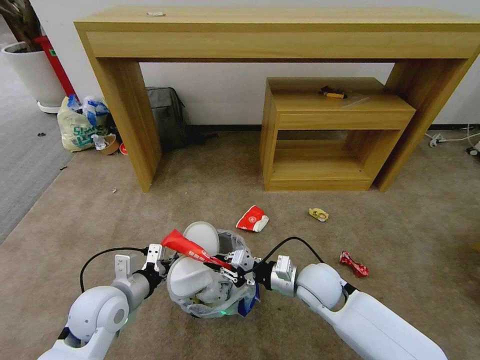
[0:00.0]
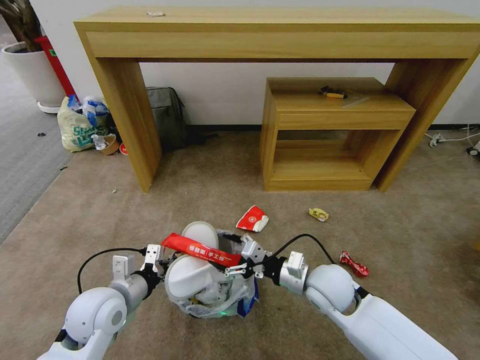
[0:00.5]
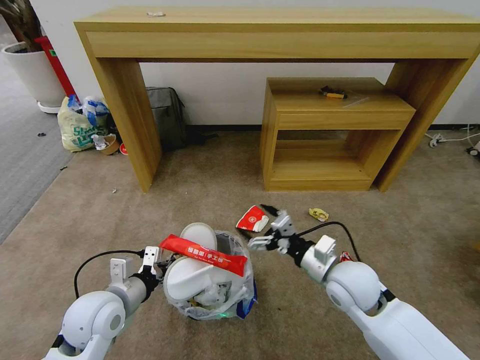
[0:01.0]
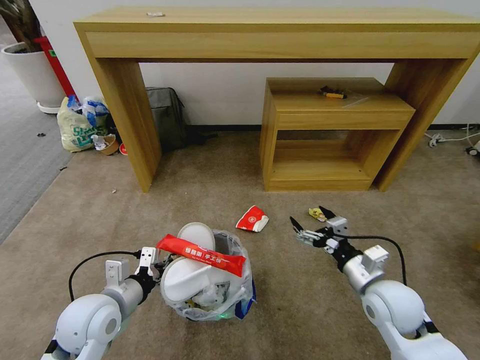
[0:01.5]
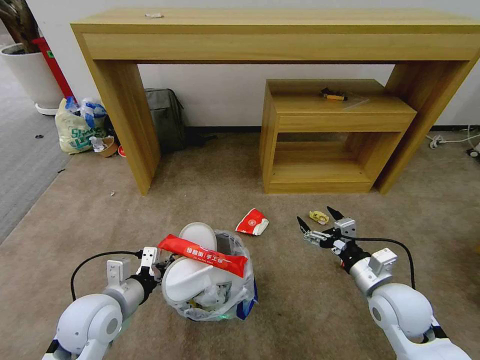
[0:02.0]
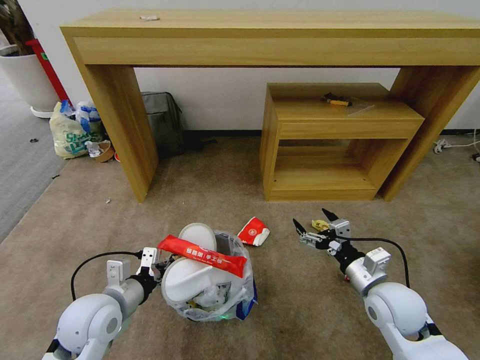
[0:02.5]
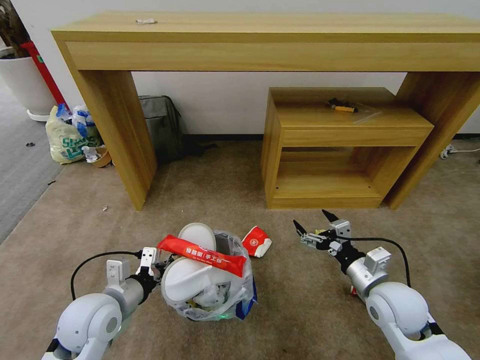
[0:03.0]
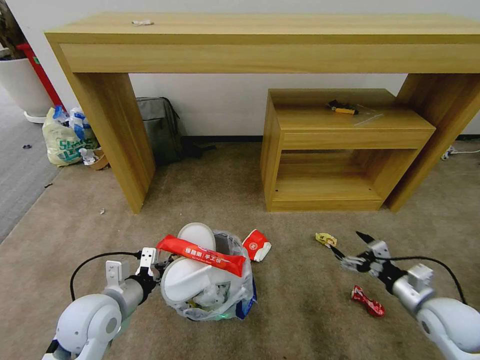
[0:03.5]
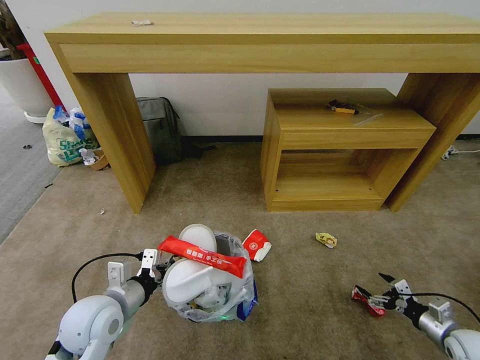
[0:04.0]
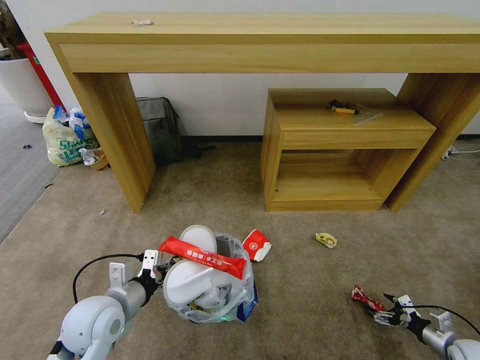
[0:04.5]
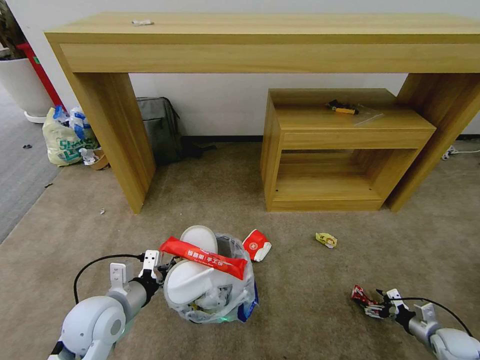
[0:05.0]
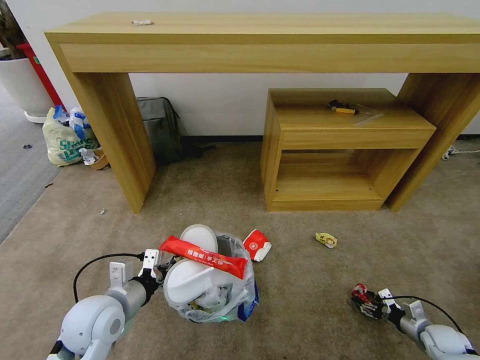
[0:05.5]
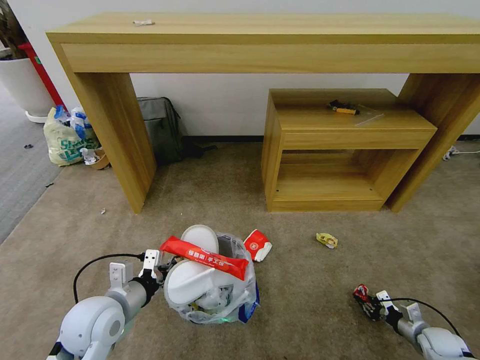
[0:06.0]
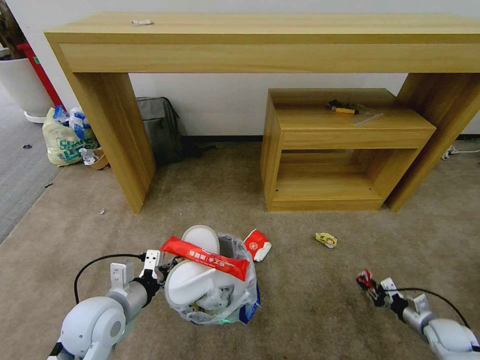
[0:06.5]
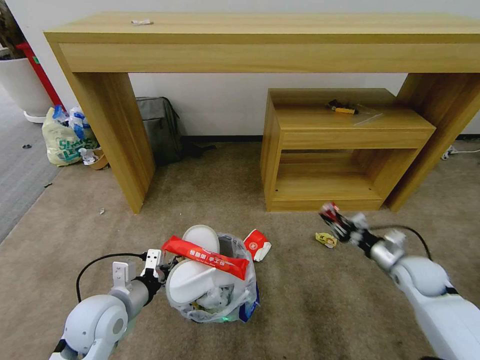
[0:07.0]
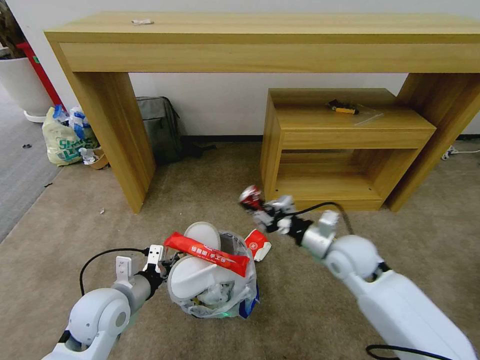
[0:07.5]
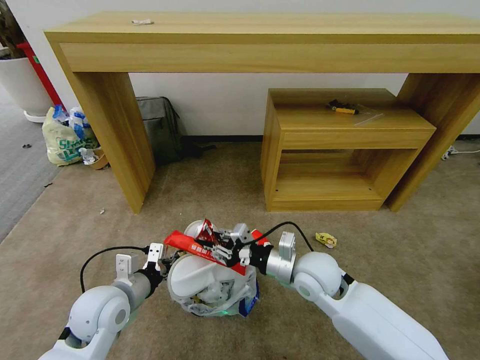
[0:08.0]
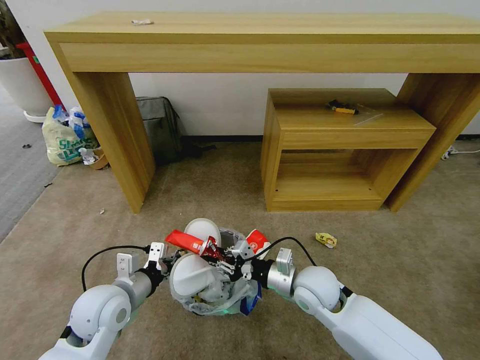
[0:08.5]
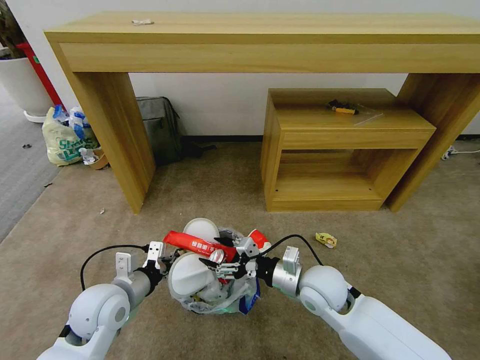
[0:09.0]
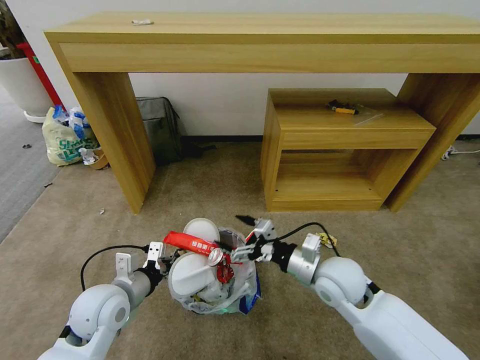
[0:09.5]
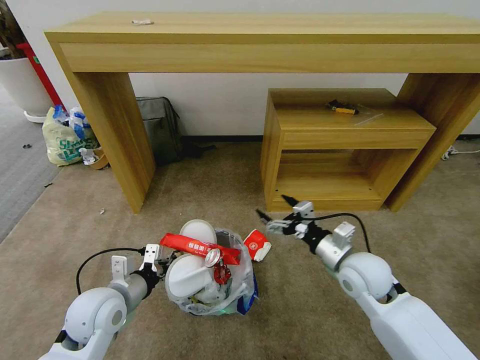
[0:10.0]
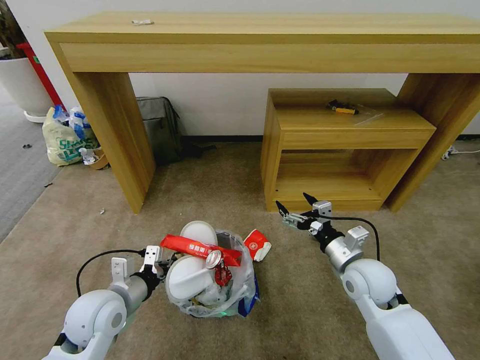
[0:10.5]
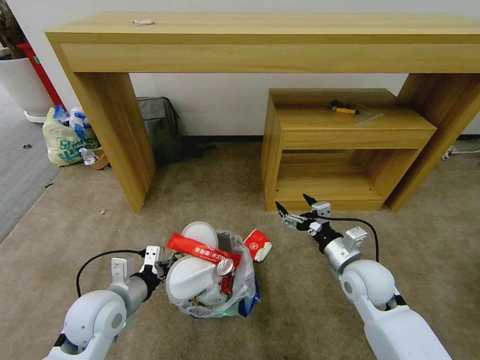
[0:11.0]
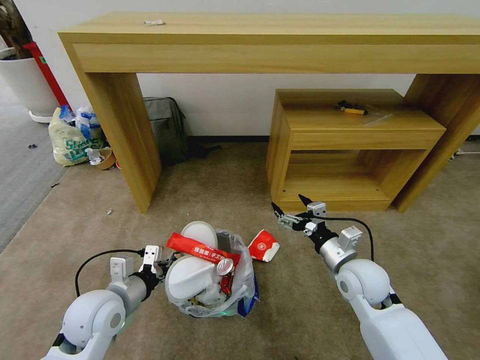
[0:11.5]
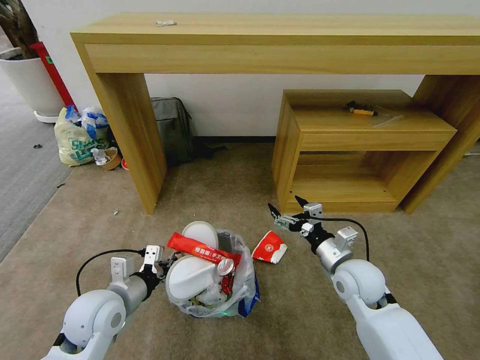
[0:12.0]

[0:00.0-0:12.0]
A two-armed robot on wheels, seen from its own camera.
Task of the whole recording: Pick up the trash bin and place the garbage on the floor into it.
0:00.0 to 0:02.0: The right gripper travels to the right and backward by roughly 15 cm, and opens its fingers.
0:02.0 to 0:04.0: The right gripper travels to the right and downward by roughly 30 cm.
0:04.0 to 0:06.0: The right gripper travels downward by some 10 cm, and closes its fingers.
0:06.0 to 0:08.0: The right gripper goes roughly 50 cm to the left and upward.
0:08.0 to 0:10.0: The right gripper travels to the right by approximately 10 cm, and opens its fingers.

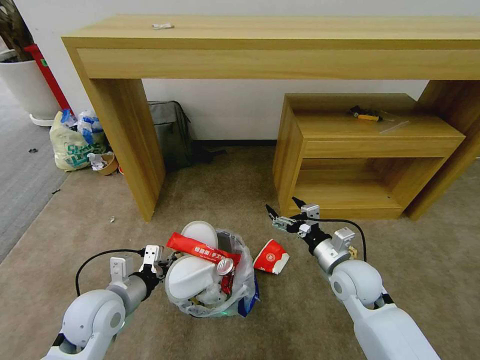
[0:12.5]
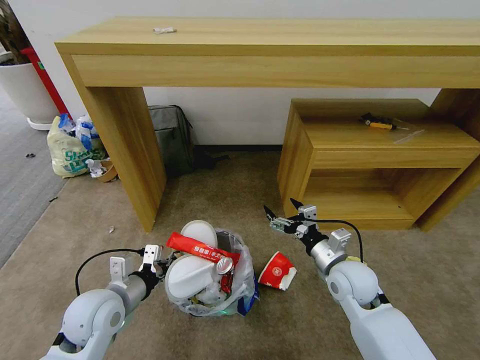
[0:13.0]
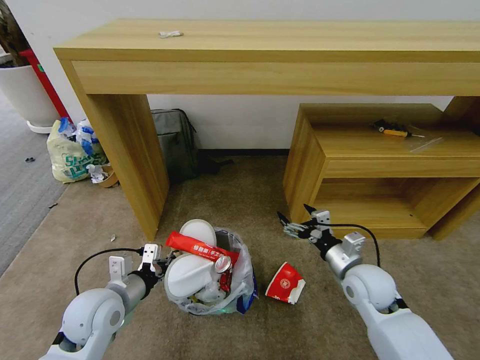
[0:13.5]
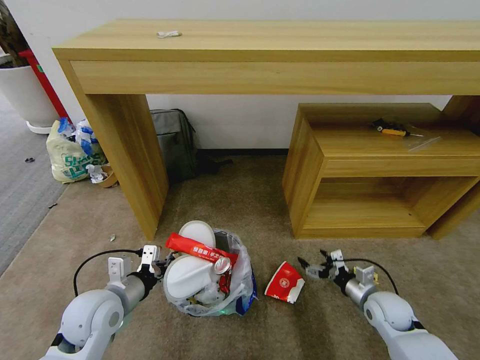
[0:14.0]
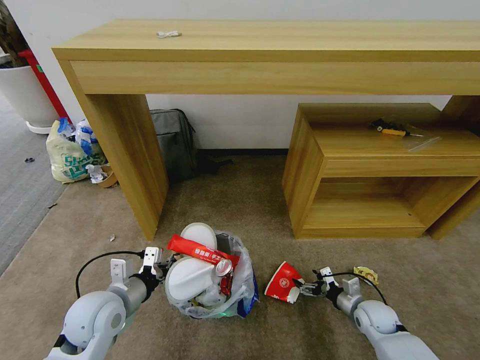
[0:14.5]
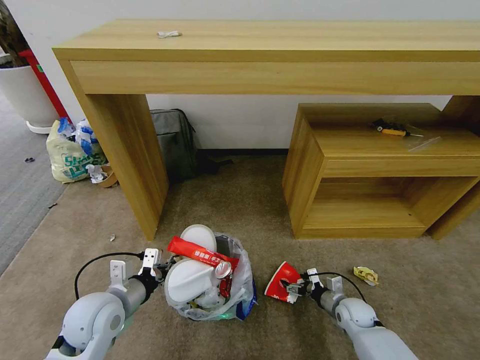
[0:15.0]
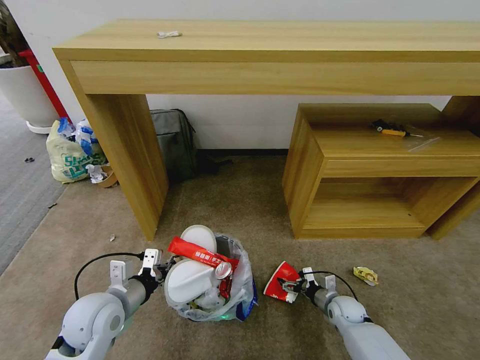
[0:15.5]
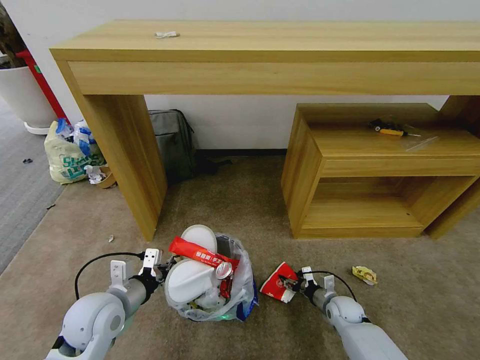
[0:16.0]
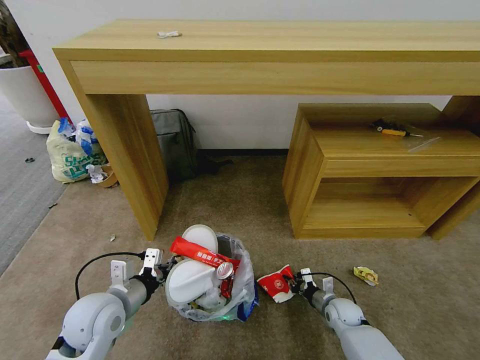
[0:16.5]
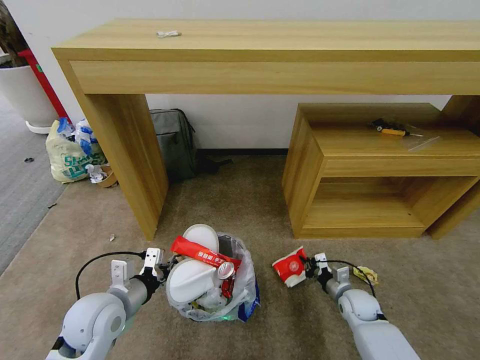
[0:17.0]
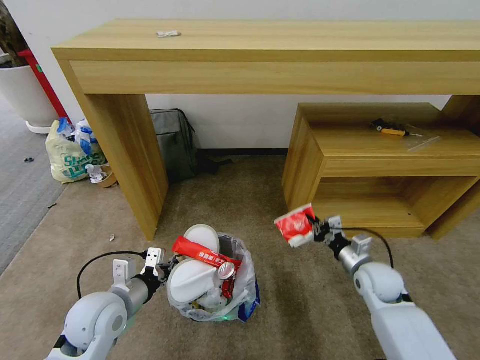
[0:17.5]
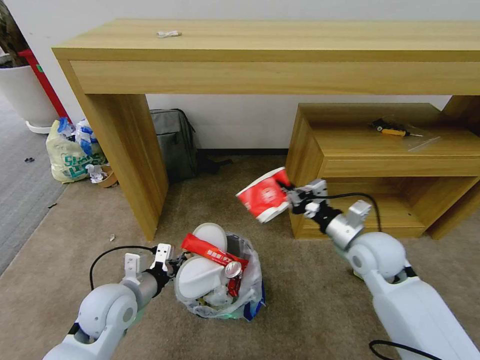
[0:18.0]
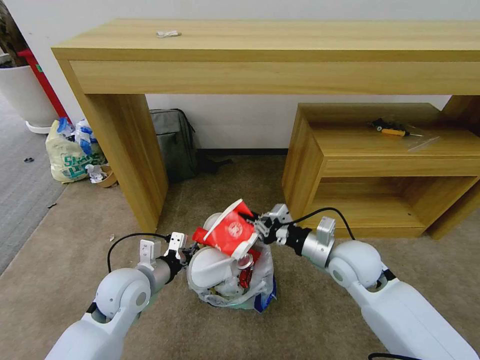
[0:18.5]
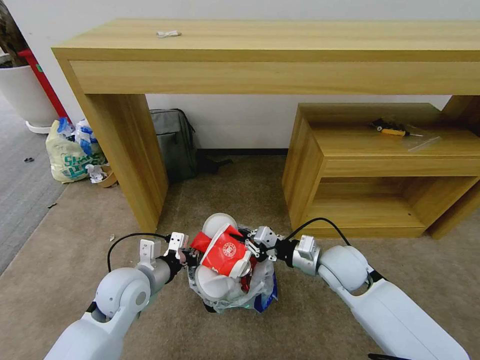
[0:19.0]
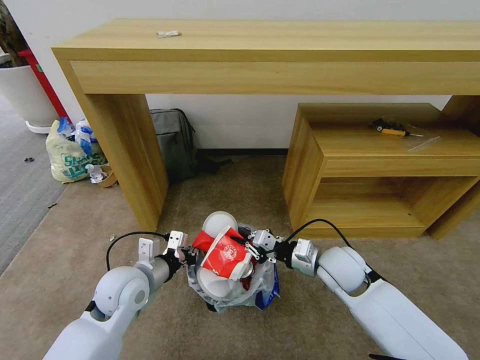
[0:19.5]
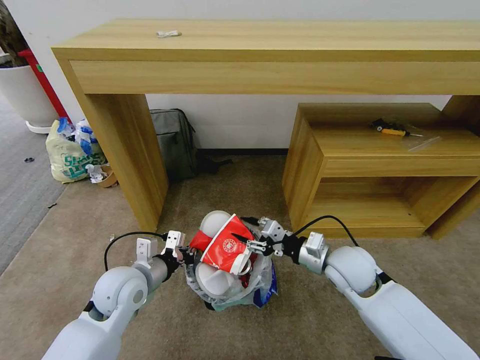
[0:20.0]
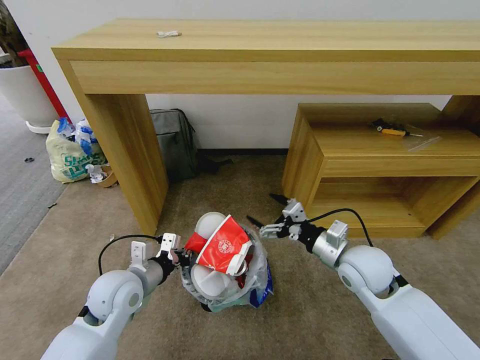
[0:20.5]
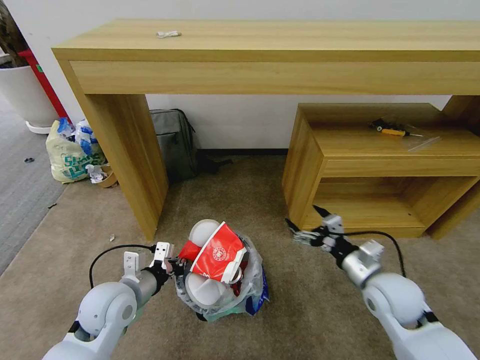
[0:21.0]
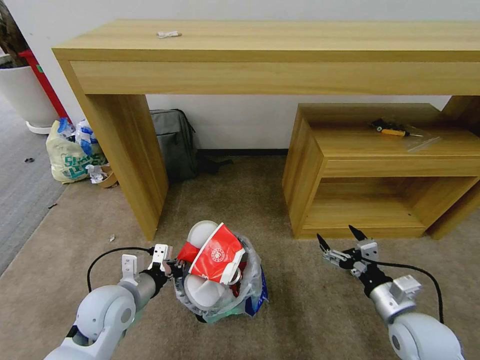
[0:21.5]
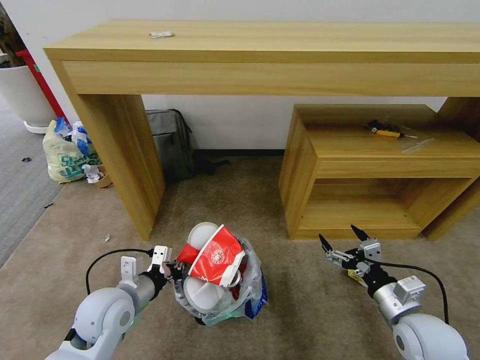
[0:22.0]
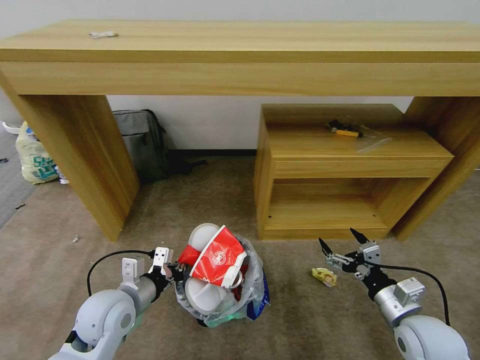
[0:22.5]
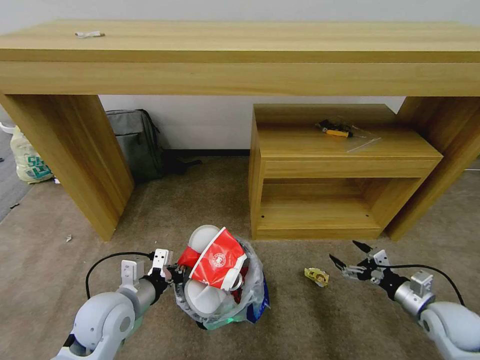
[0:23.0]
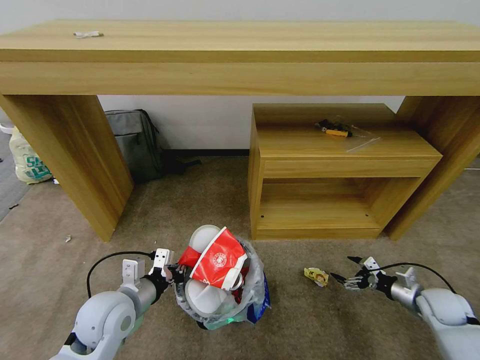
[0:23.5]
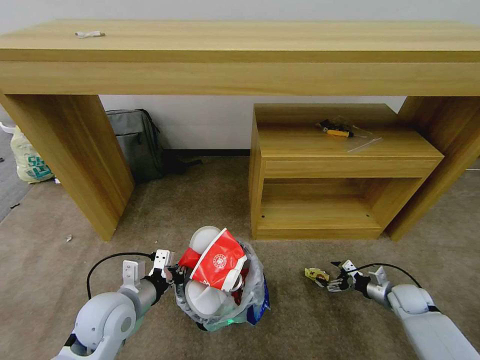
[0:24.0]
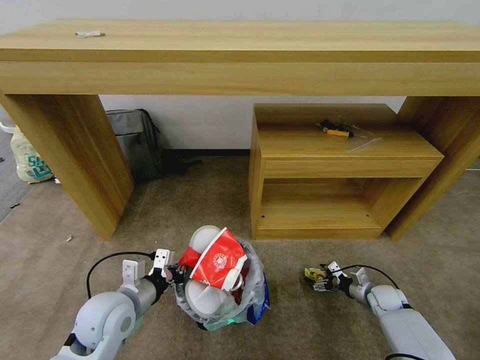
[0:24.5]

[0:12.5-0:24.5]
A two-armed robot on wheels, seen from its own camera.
Task of the whole recording: Pick up the trash bin and place the garbage on the floor into it.
0:12.5 to 0:14.5: The right gripper moves downward and to the right, approximately 20 cm.
0:14.5 to 0:16.5: The right gripper shifts some 10 cm to the left and downward, and closes its fingers.
0:16.5 to 0:18.5: The right gripper travels upward by approximately 30 cm, while the left gripper ends up some 5 cm from where it was.
0:18.5 to 0:20.5: The right gripper opens.
0:20.5 to 0:22.5: The right gripper goes some 15 cm backward, to the right and downward.
0:22.5 to 0:24.5: The right gripper is displaced downward, forward and to the right by some 25 cm.

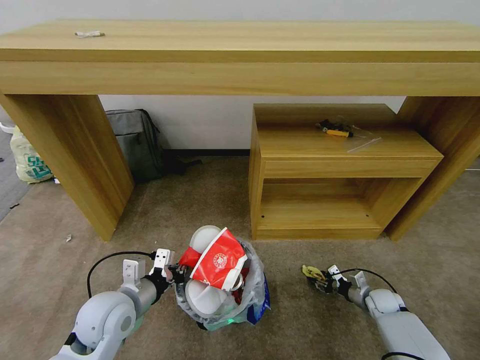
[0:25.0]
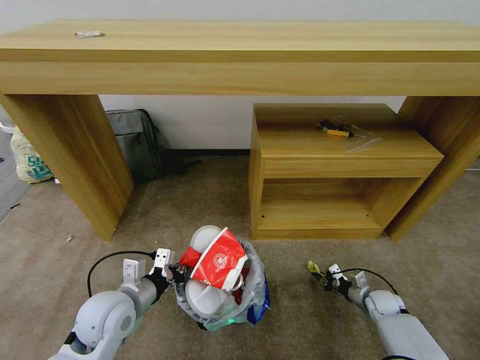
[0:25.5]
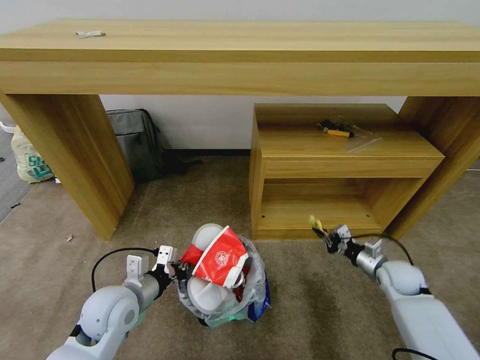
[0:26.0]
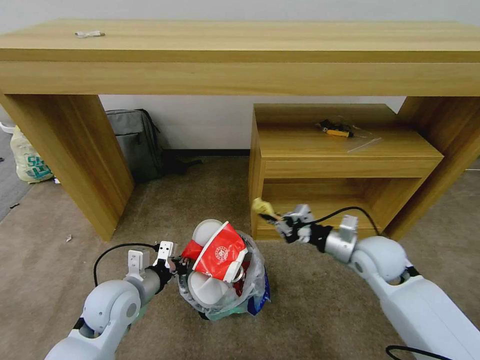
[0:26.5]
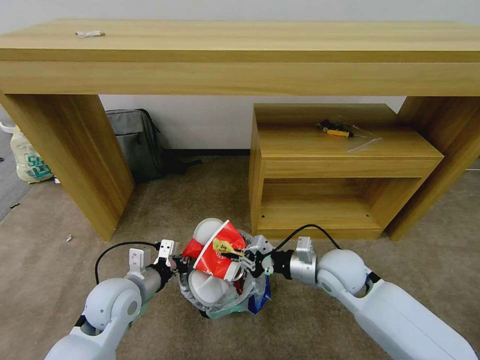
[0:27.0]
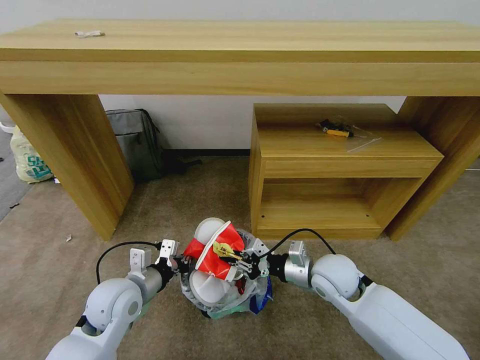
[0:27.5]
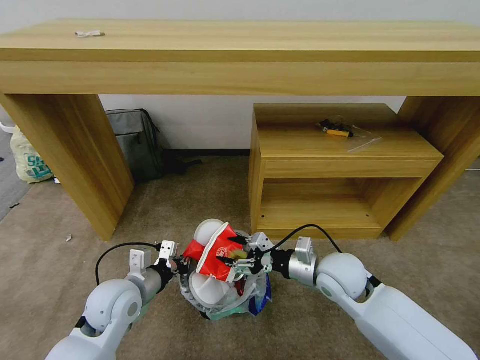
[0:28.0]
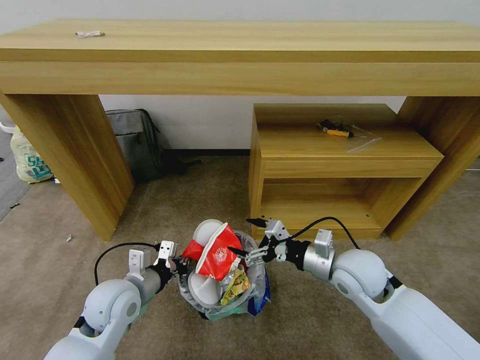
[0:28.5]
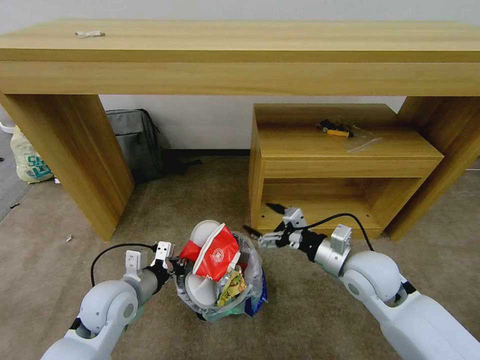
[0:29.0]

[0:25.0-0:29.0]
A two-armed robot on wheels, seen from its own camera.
Task of the whole recording: Pick up the trash bin and place the garbage on the floor into it.
0:25.0 to 0:27.0: The right gripper shifts approximately 35 cm upward and to the left, and closes up.
0:27.0 to 0:29.0: The right gripper shifts by about 5 cm, and opens its fingers.
